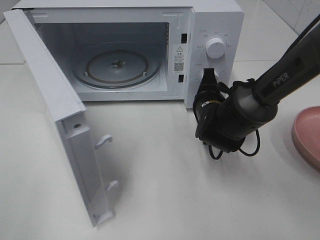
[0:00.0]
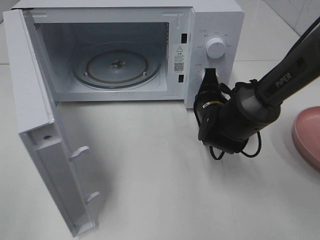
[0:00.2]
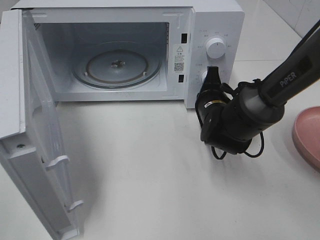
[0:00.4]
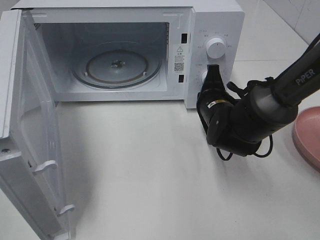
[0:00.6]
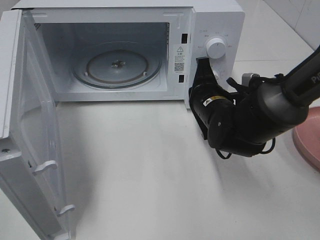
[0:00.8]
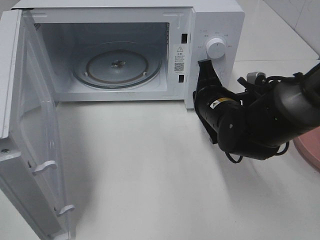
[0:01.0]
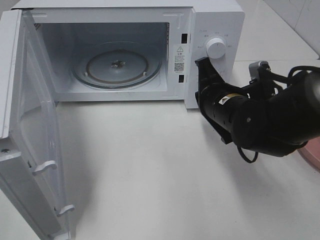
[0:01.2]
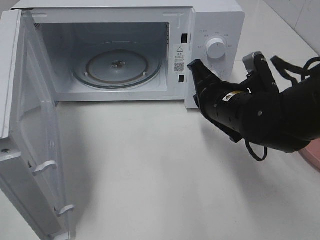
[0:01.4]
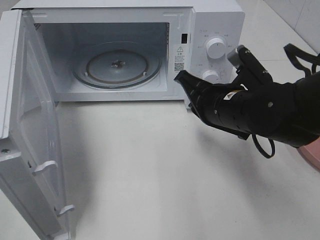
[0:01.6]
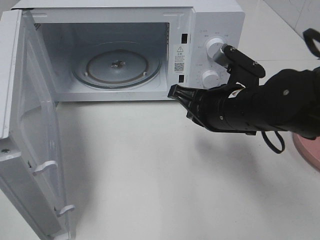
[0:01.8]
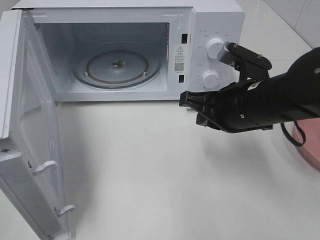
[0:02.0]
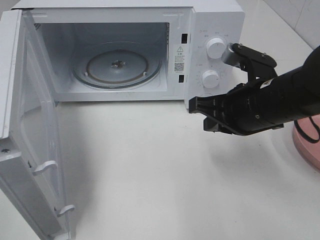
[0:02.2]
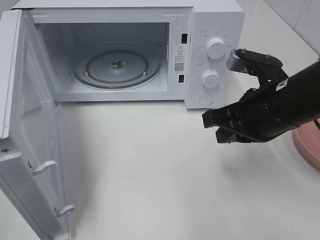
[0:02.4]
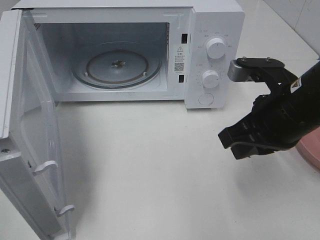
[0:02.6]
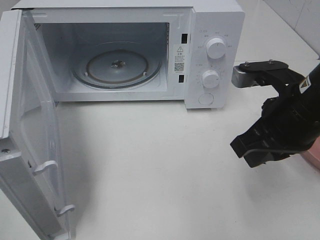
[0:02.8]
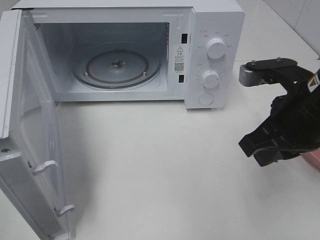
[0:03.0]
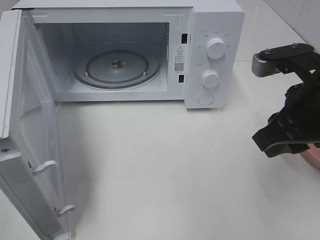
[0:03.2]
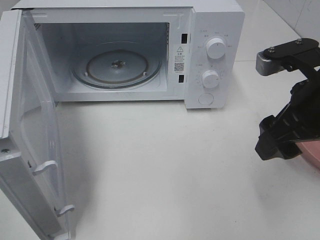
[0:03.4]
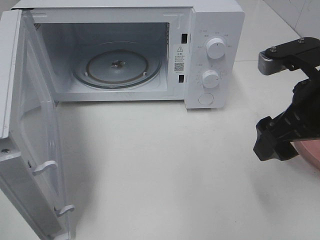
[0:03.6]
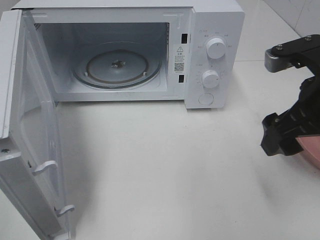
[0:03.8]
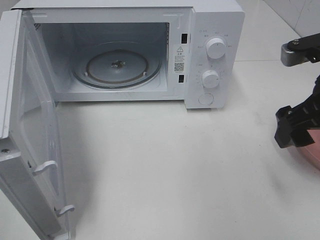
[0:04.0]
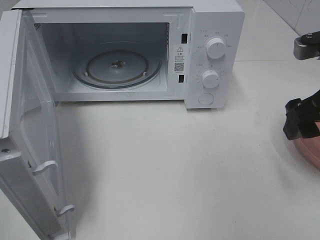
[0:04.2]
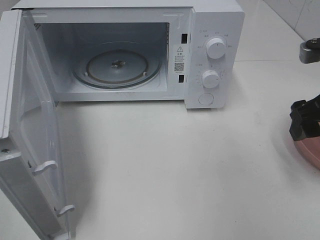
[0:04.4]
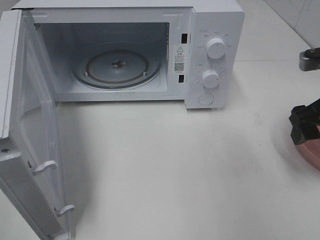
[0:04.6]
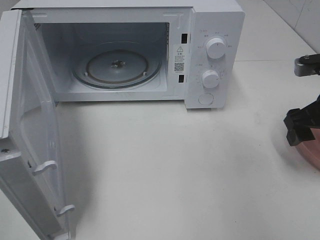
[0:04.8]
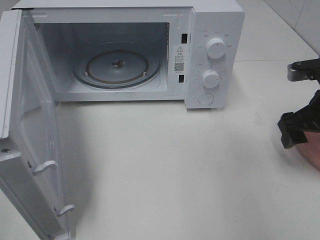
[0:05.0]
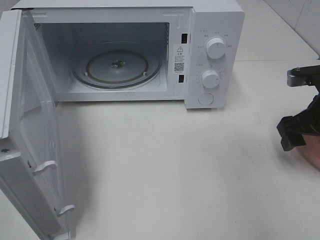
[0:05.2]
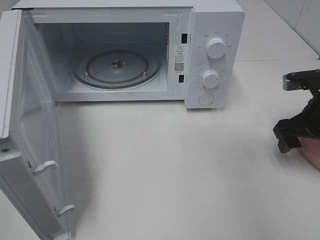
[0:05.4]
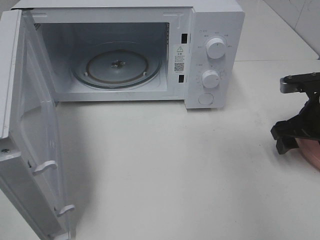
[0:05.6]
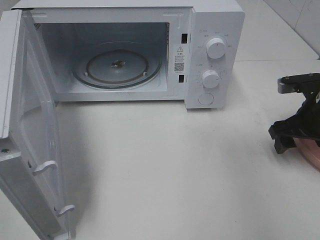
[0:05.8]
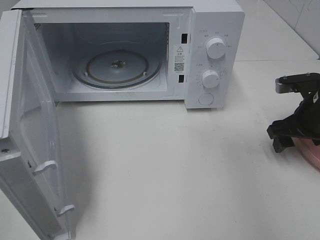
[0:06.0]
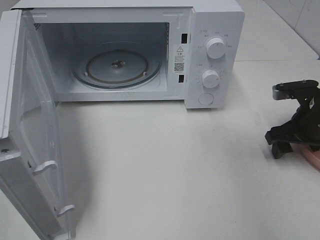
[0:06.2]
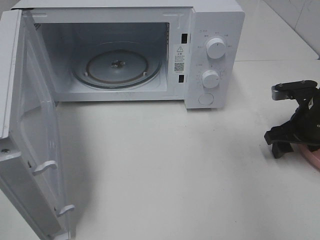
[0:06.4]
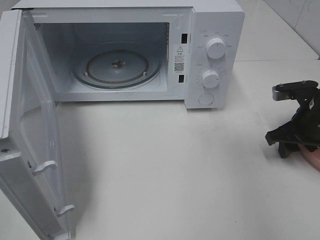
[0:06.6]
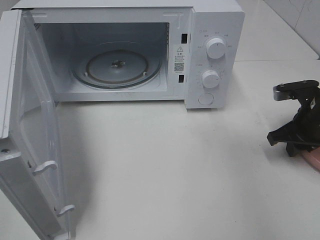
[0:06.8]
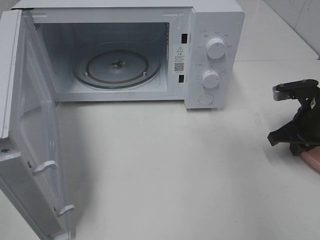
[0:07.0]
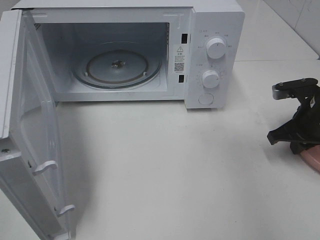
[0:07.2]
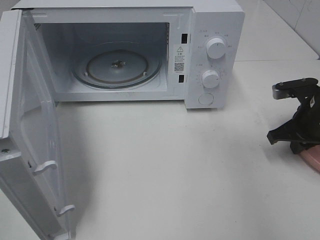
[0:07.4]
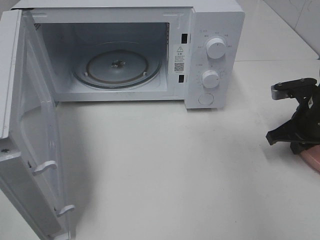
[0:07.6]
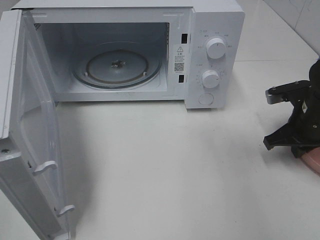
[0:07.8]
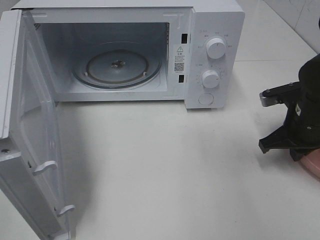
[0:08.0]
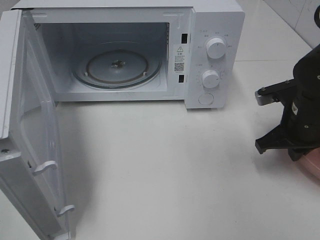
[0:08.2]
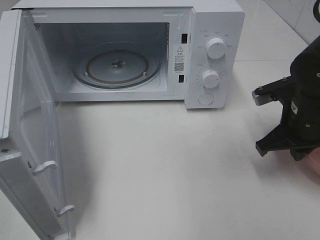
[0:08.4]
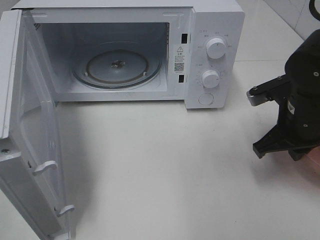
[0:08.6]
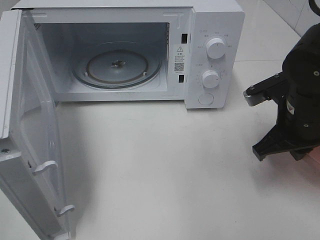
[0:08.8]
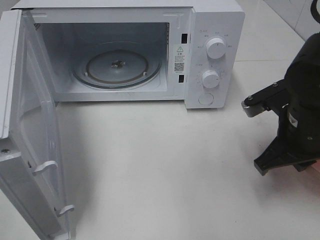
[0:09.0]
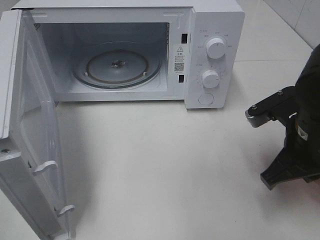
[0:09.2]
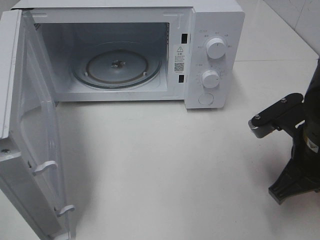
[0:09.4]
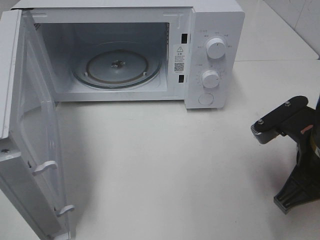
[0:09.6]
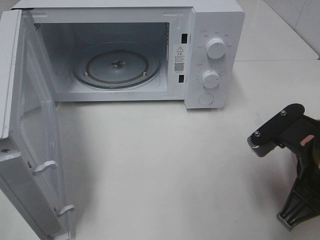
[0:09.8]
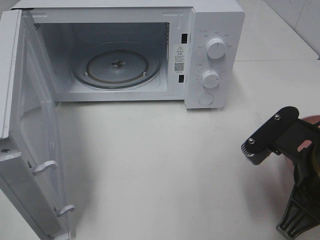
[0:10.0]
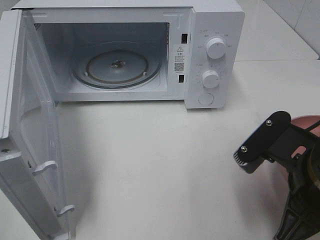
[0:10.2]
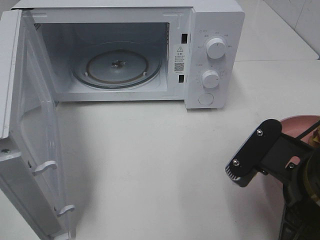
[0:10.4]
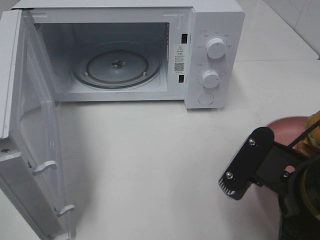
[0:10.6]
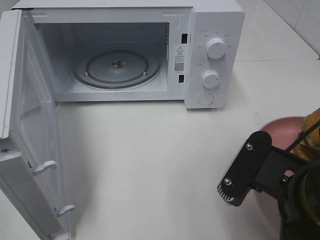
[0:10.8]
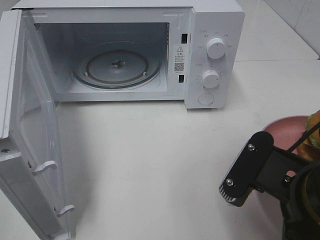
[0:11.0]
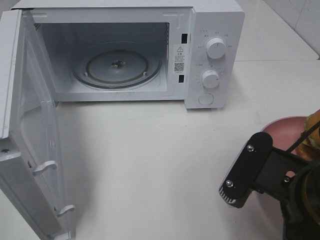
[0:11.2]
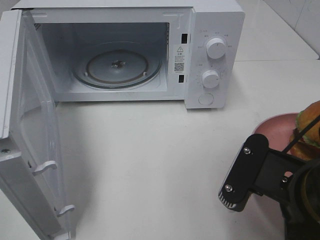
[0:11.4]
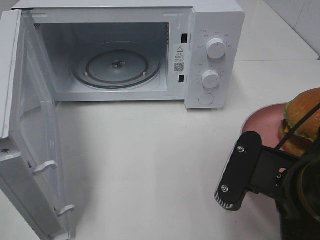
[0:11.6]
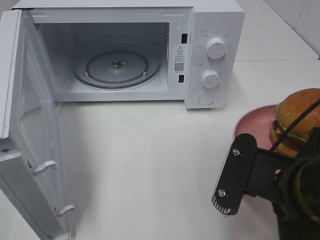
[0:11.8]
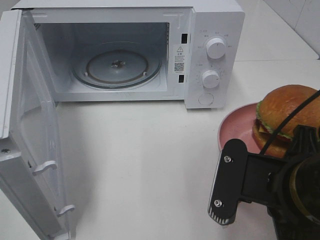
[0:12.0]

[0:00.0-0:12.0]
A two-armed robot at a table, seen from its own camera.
Task of the whole recording: Heat the burger.
Step, 0:00.8 to 0:07.2: Right hand: grab the plate with the hamburger.
0:00.0 to 0:01.6: The right gripper shifts some 10 cm backward and upward.
0:01.6 to 0:03.0: The right gripper shifts about 10 cm to the right, upward and backward.
0:03.0 to 0:04.4: The right gripper goes approximately 10 cm to the right, and opens its fingers.
0:04.4 to 0:06.0: The right gripper is displaced downward and forward by roughly 10 cm.
0:06.0 to 0:07.6: The right gripper closes up.
0:07.6 to 0:09.0: The right gripper travels to the left, backward and upward by about 10 cm.
0:09.0 to 0:10.4: The right gripper shifts approximately 10 cm backward.

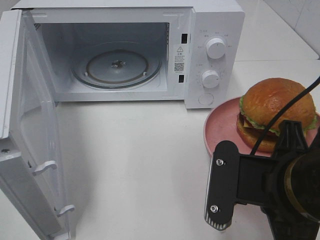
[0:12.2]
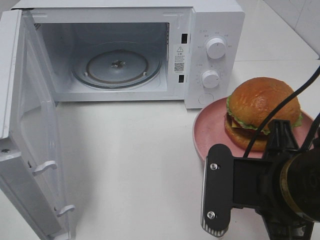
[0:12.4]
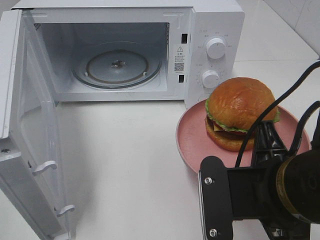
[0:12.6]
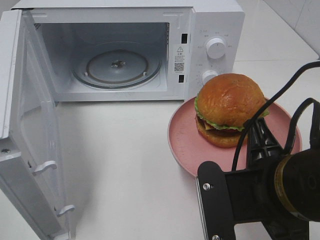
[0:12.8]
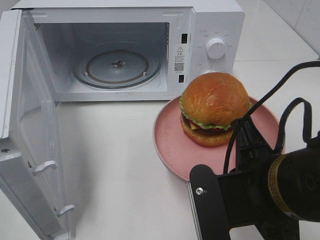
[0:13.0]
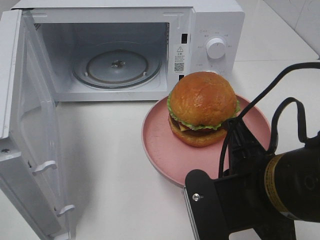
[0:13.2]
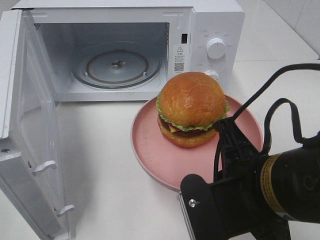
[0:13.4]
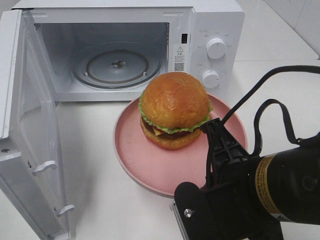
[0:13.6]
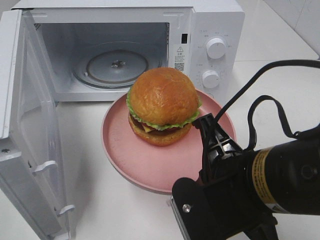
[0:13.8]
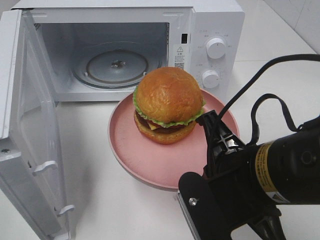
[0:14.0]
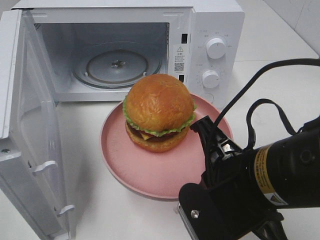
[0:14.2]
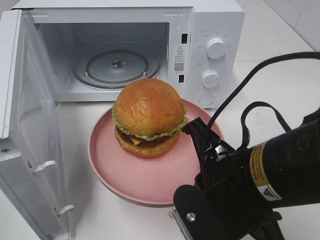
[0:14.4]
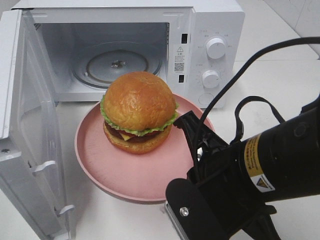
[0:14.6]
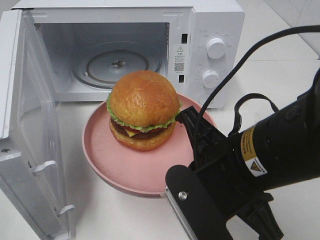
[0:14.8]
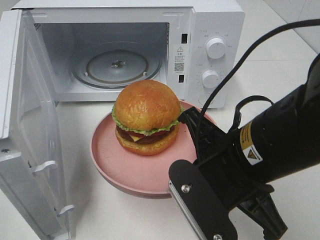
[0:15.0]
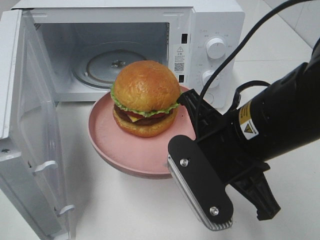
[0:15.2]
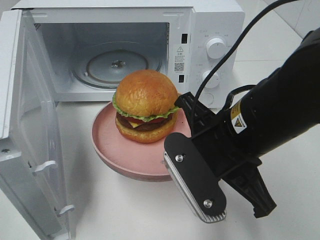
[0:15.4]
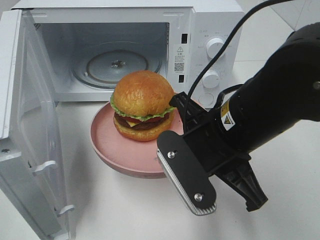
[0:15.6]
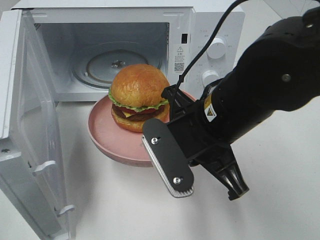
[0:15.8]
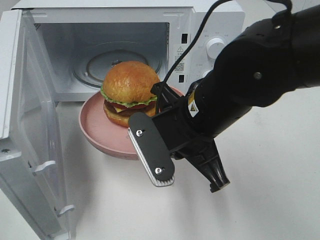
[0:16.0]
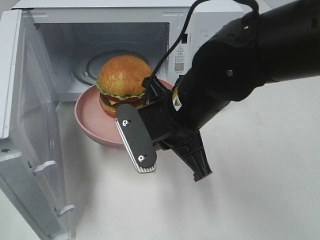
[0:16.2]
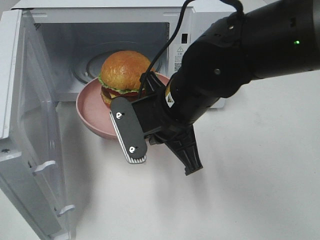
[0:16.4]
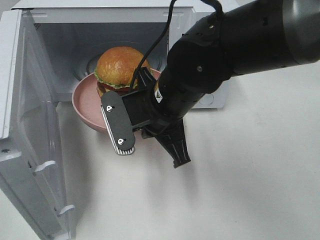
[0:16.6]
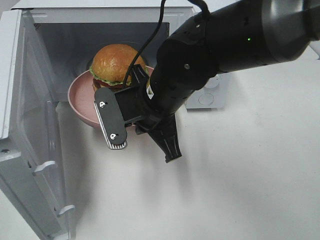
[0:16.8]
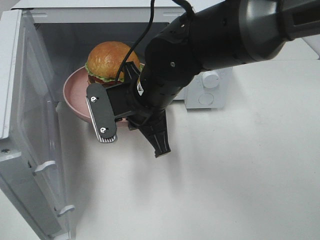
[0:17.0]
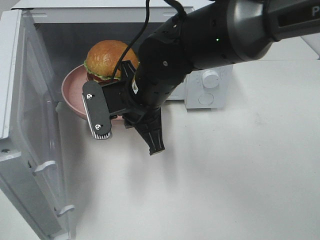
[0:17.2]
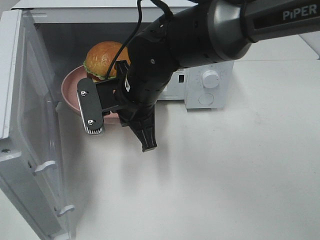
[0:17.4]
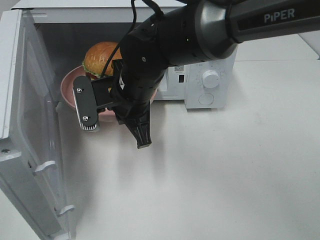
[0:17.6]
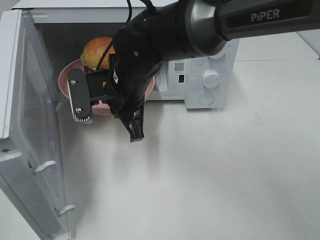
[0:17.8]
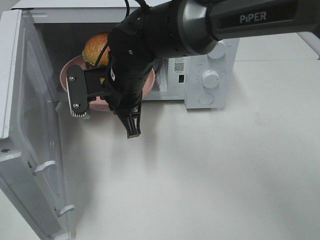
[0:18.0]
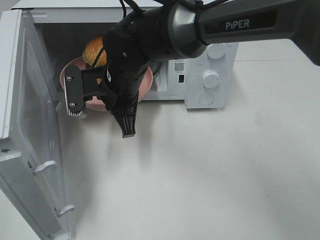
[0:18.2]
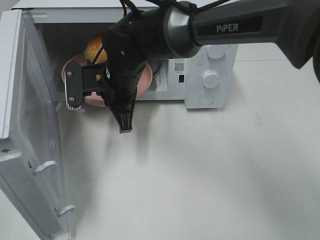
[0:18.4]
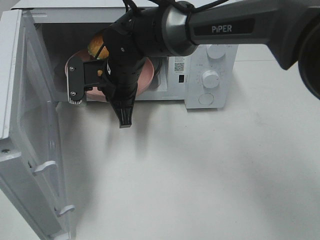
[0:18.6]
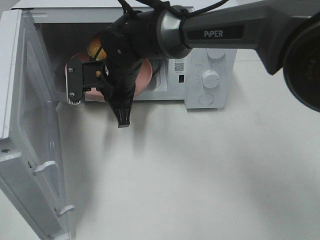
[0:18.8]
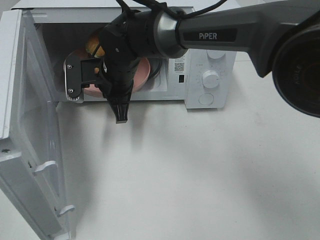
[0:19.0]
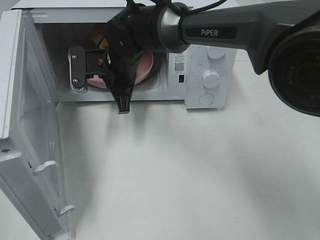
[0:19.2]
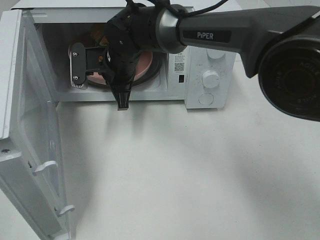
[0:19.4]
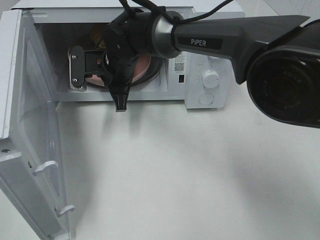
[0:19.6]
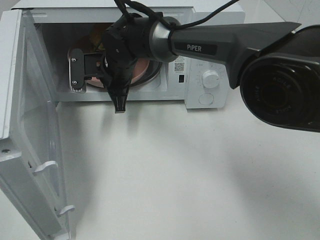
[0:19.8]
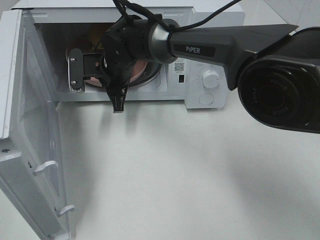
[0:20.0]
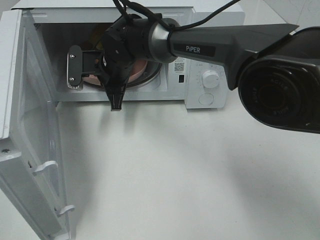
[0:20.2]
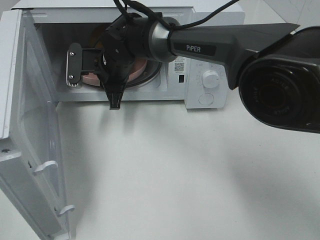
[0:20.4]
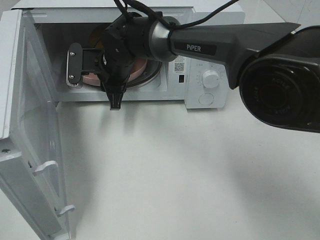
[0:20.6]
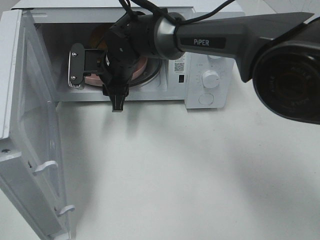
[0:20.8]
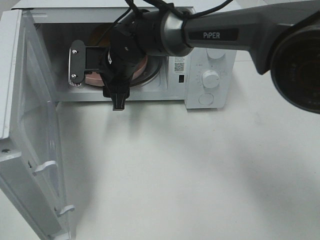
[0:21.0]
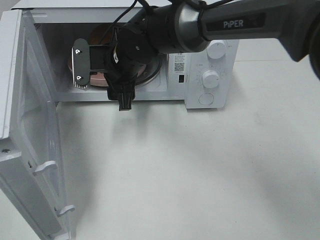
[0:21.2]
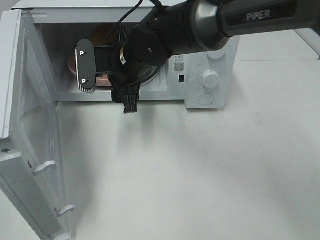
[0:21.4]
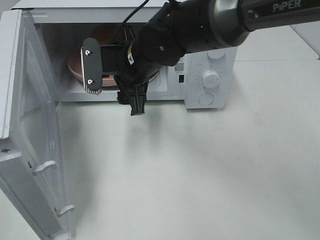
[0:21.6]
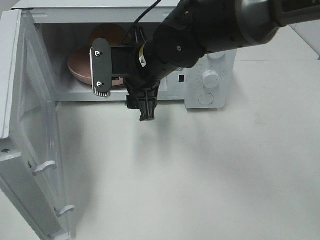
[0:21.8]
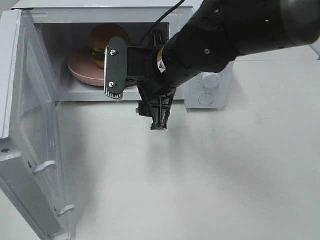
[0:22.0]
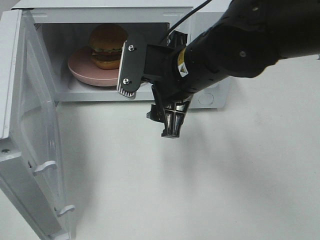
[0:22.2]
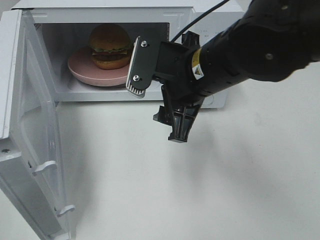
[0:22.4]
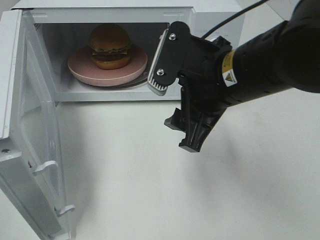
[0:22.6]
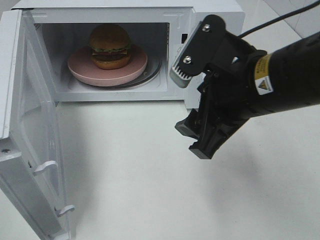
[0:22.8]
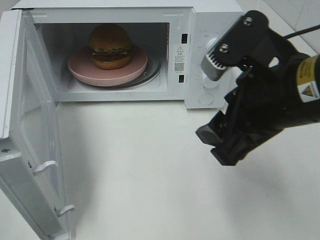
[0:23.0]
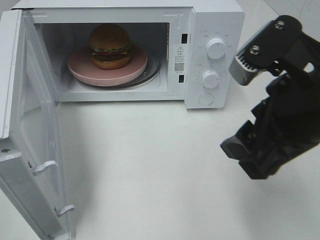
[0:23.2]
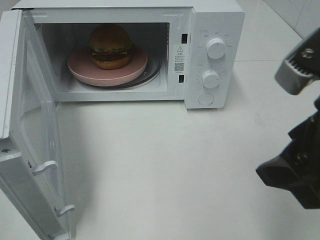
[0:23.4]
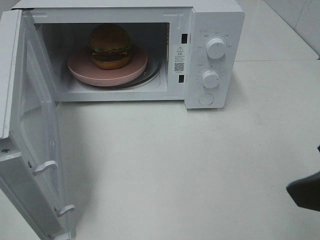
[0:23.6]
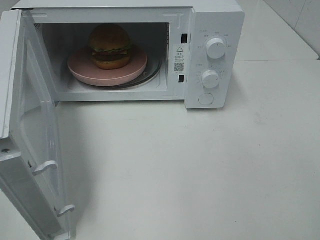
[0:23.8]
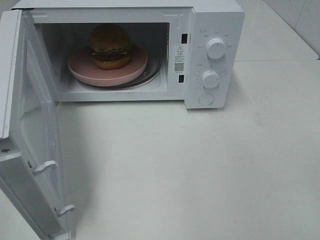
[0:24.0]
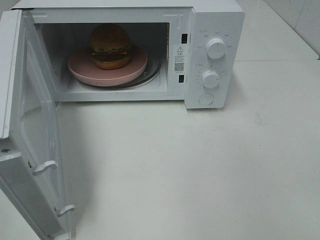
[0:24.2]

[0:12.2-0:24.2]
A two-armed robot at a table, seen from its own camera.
Task of the whole recording: Heat the burger.
Step, 0:12.2 to 0:20.4: Right hand: place the plate in the microwave.
0:13.8 to 0:15.2: The right gripper shifts by about 5 cm.
0:15.2 to 0:16.6: The right gripper is displaced forward and to the left by approximately 10 cm.
0:16.6 to 0:18.2: The right gripper heads forward and to the left, covering about 10 cm.
0:18.2 to 0:19.8: The right gripper goes about 10 cm forward.
0:19.8 to 0:21.2: The right gripper opens its fingers.
0:21.2 to 0:22.6: The right gripper heads backward, to the right and upward, covering about 20 cm.
0:22.6 to 0:24.2: The right gripper heads backward and to the right, covering approximately 25 cm.
